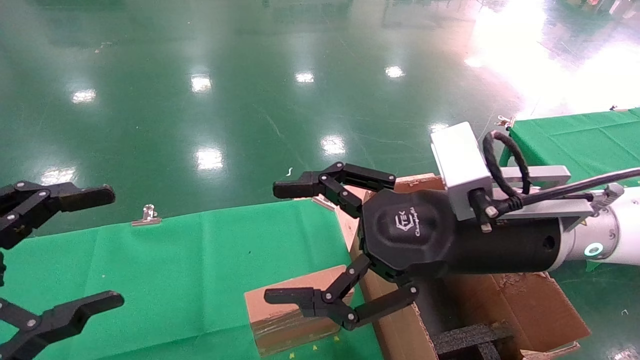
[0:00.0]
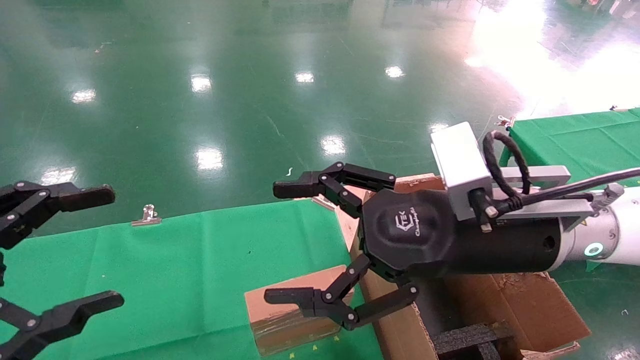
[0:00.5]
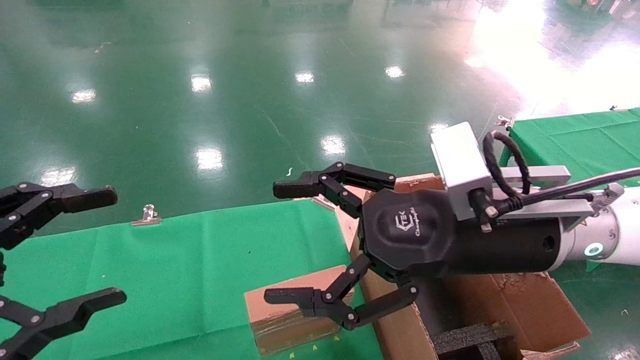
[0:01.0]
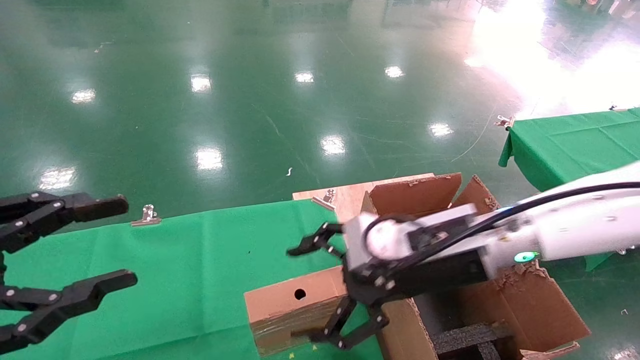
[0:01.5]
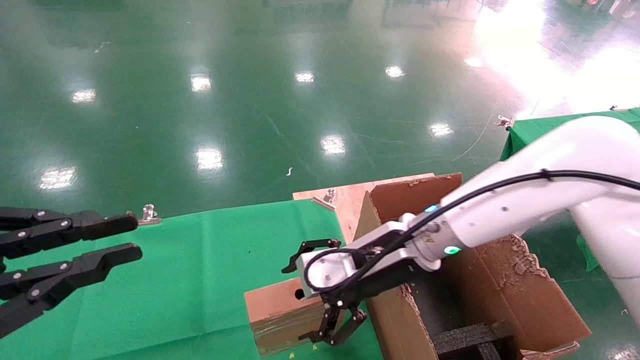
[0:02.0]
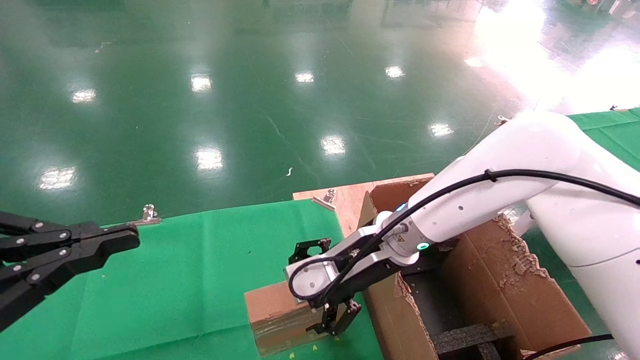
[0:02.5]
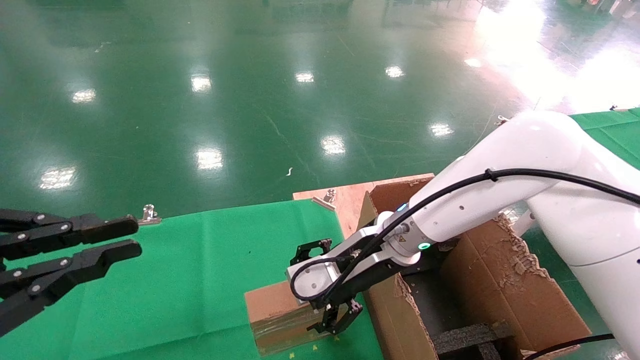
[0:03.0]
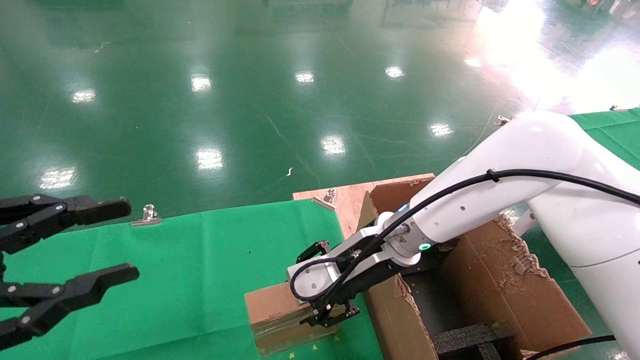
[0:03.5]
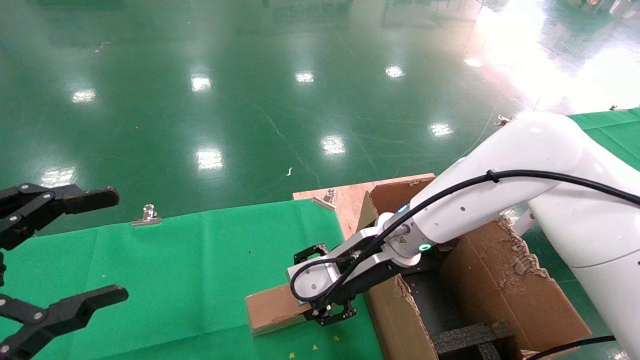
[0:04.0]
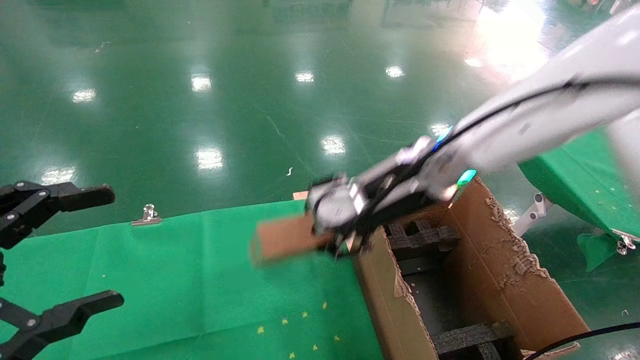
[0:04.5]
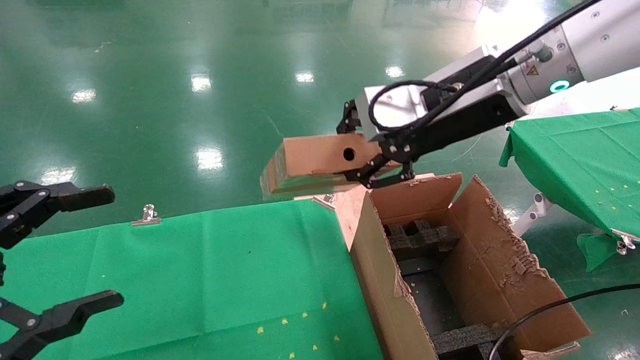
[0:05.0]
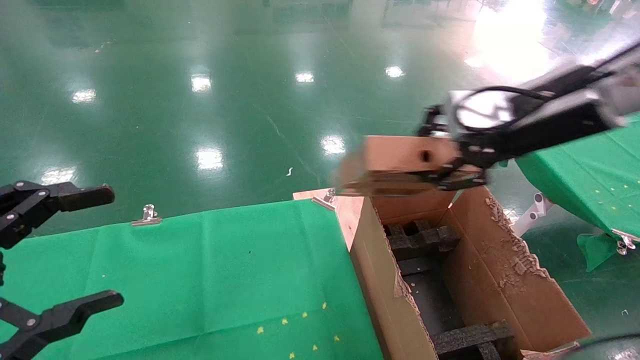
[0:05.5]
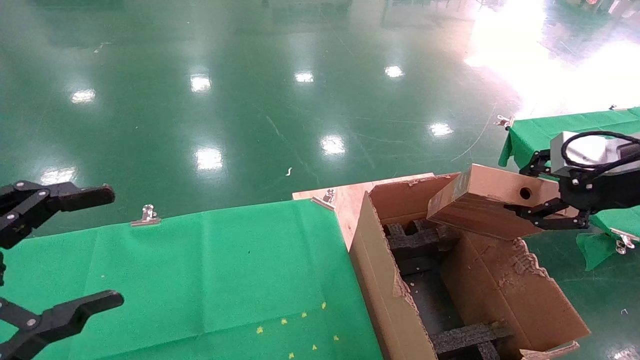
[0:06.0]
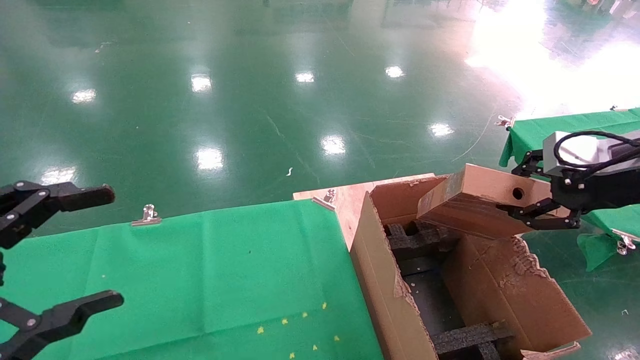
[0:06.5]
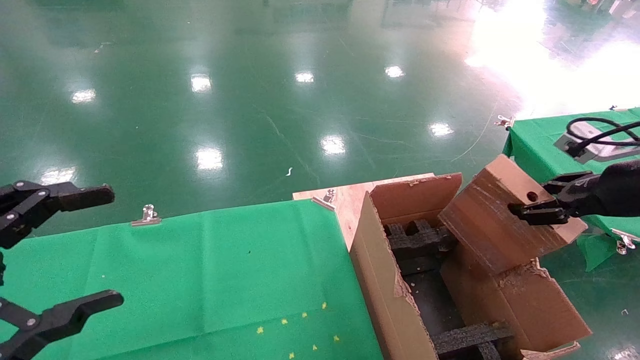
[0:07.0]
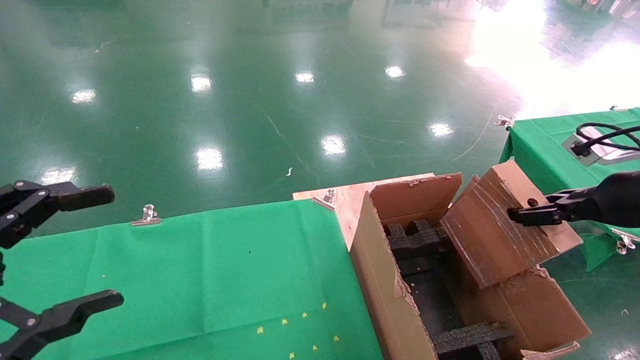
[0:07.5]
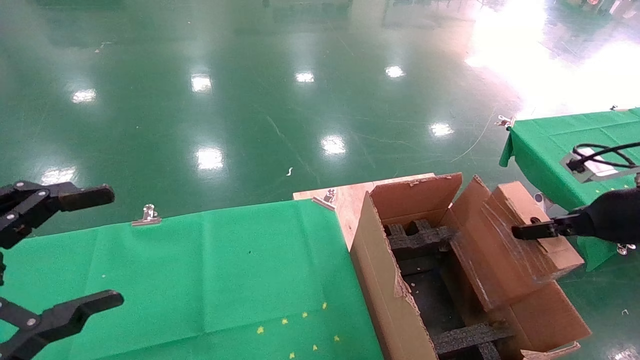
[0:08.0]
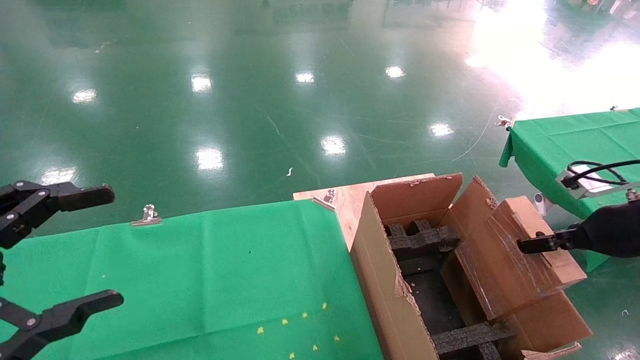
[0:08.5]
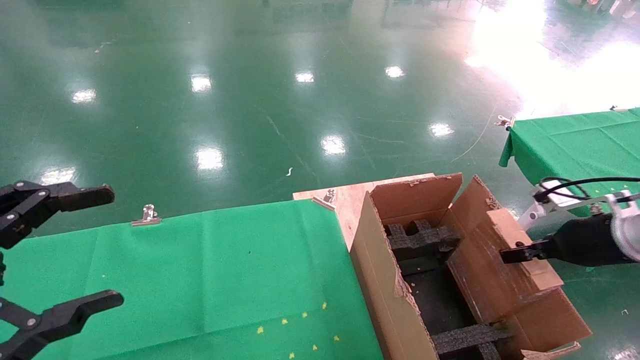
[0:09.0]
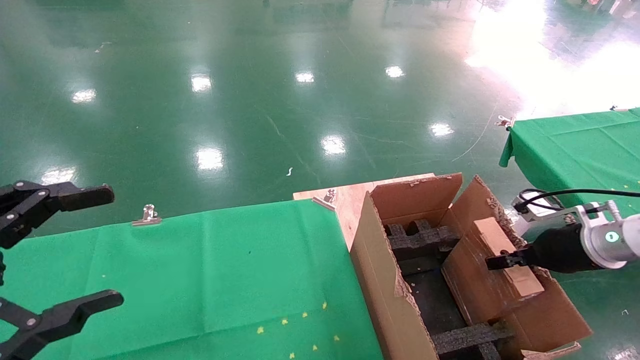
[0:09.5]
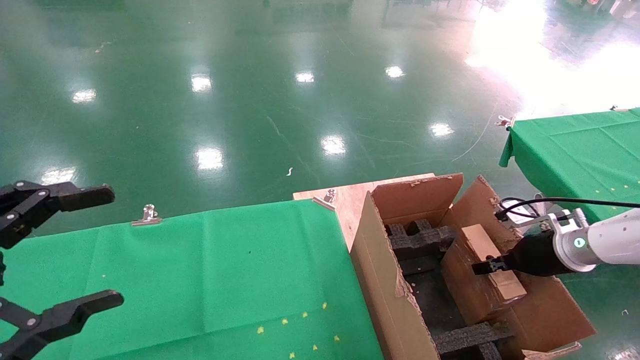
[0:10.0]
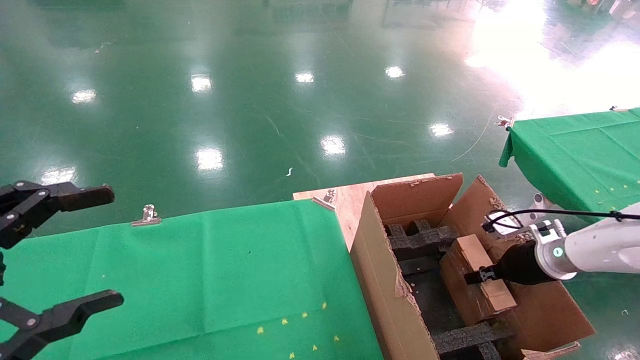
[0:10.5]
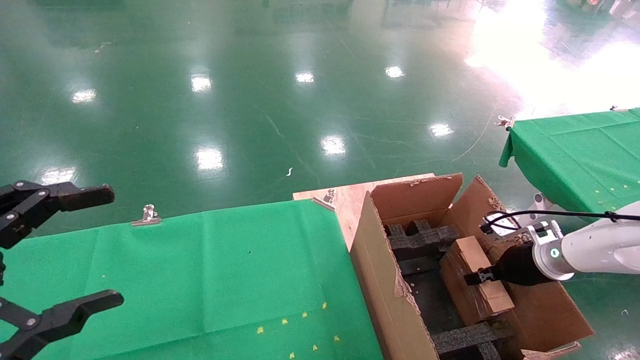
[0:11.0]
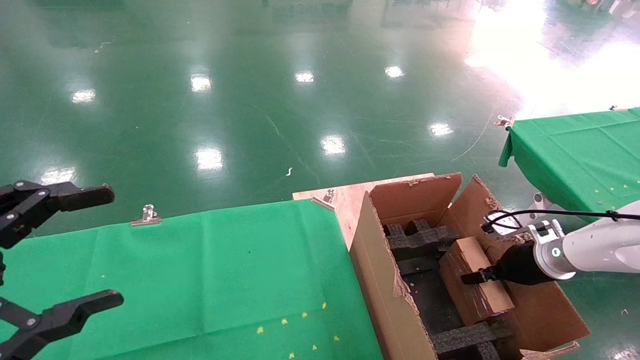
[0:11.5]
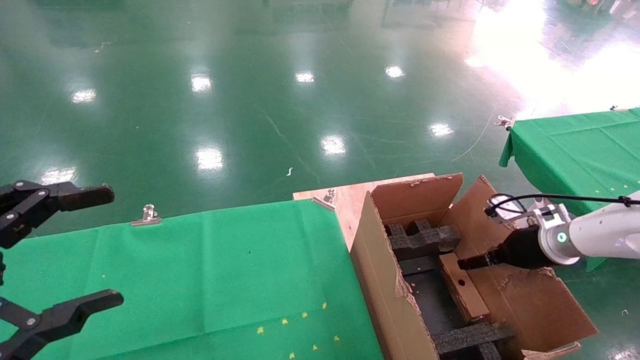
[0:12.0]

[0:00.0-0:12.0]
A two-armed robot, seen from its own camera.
Task of the whole recording: using a robotic arm to pick up a cardboard box and palace it the carton.
Step, 0:01.5 to 0:03.5: Pick up the mouse and the power cord paper box.
0:00.0 to 0:02.0: The left gripper closes its fingers. The right gripper goes approximately 15 cm forward, downward and to the left.
0:02.0 to 0:04.0: The left gripper opens its fingers. The right gripper closes up.
0:04.0 to 0:06.0: The right gripper travels to the right and upward by some 30 cm.
0:06.0 to 0:08.0: The right gripper shifts roughly 10 cm downward and to the right.
0:08.0 to 0:10.0: The right gripper heads downward and forward, covering some 15 cm.
0:10.0 to 0:12.0: The right gripper opens.

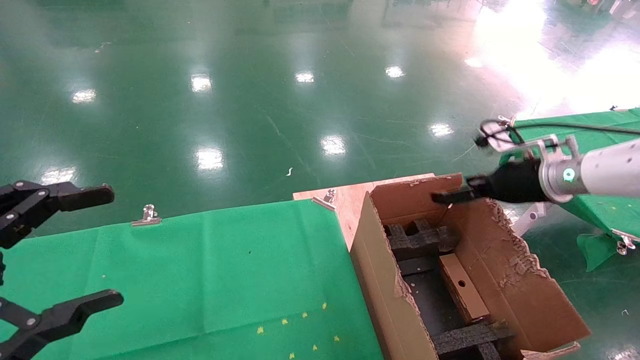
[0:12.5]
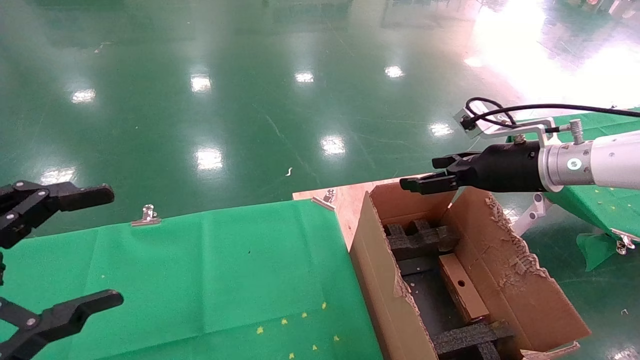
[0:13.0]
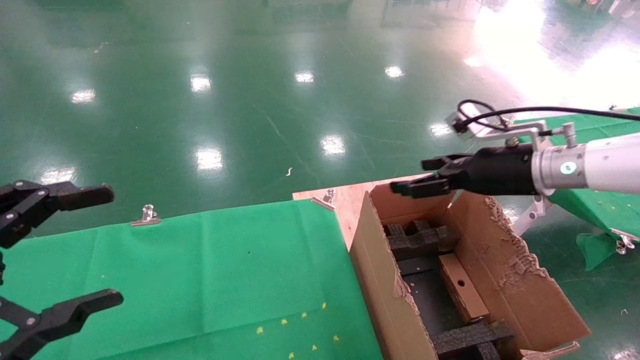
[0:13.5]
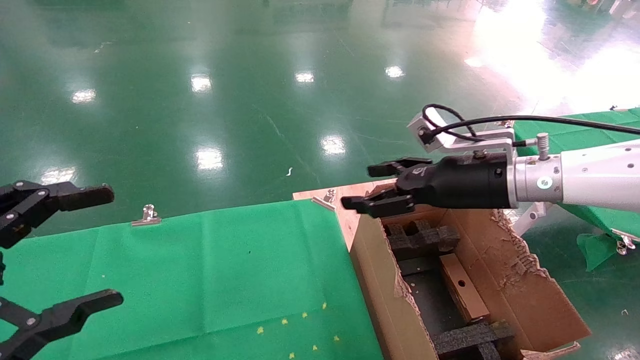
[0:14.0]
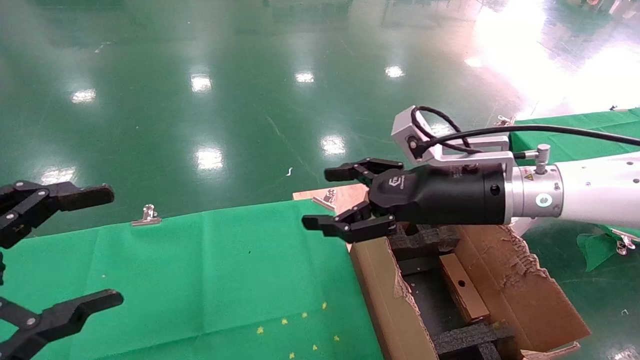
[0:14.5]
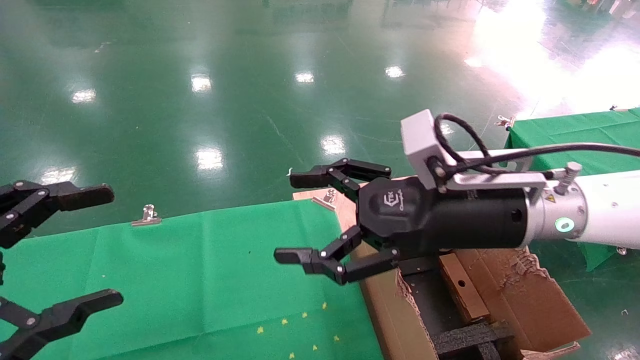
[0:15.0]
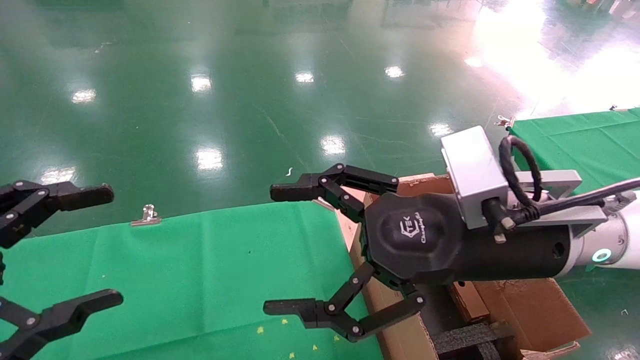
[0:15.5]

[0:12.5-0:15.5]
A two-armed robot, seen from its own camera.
Task of the whole recording: using a robotic arm to pick up a cardboard box and palace it the carton.
0:12.5 to 0:14.0: The right gripper moves to the left, approximately 10 cm.
0:14.0 to 0:15.5: The right gripper moves backward and to the left, roughly 15 cm.

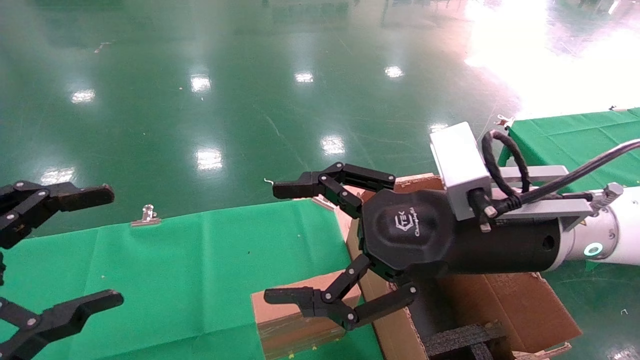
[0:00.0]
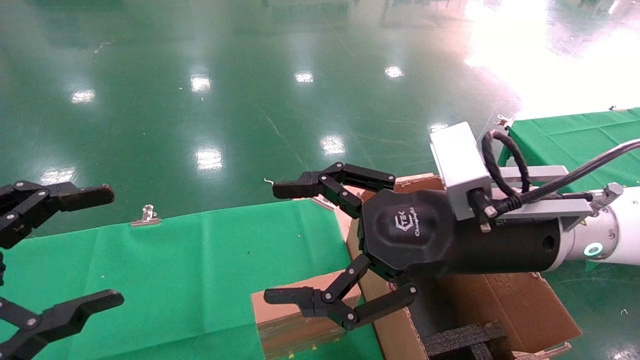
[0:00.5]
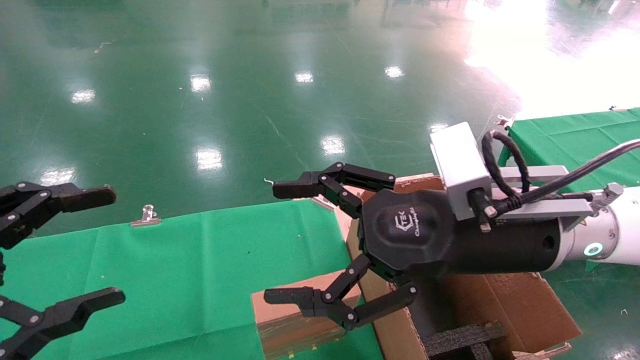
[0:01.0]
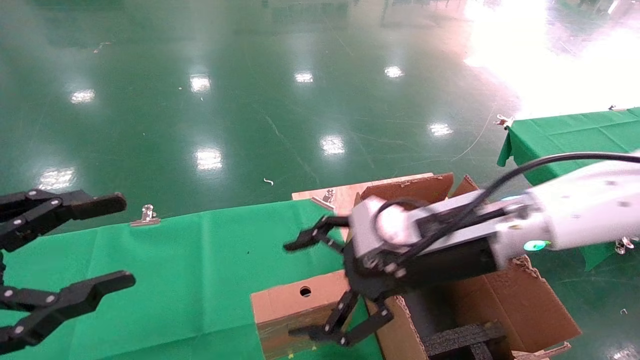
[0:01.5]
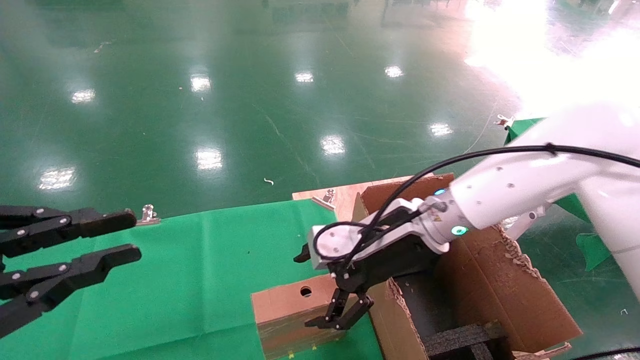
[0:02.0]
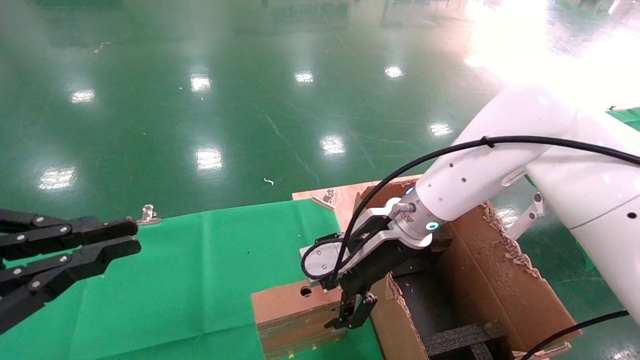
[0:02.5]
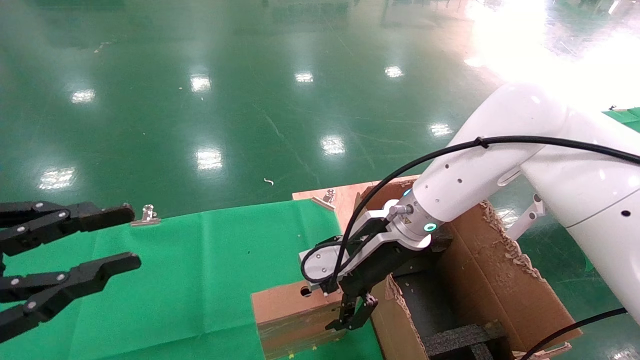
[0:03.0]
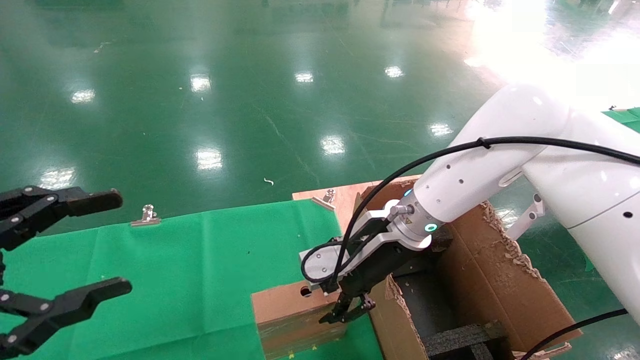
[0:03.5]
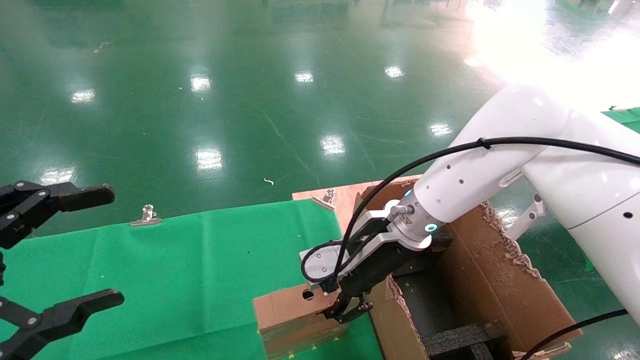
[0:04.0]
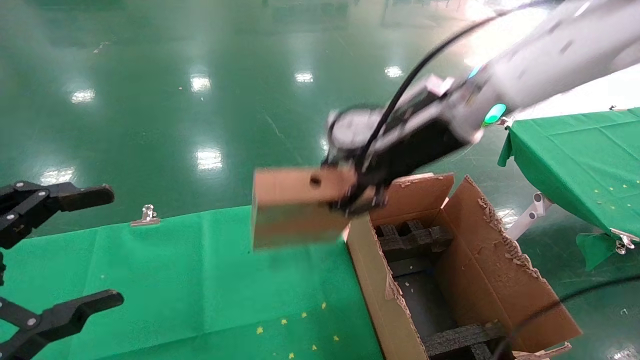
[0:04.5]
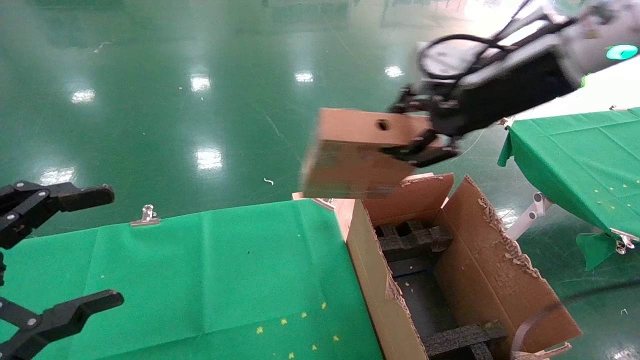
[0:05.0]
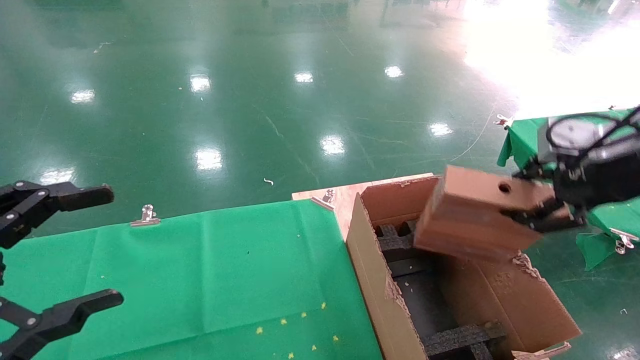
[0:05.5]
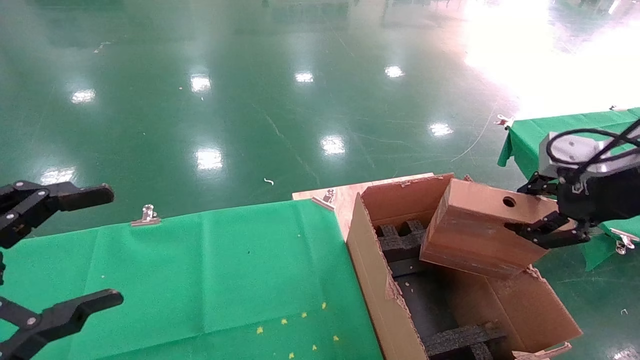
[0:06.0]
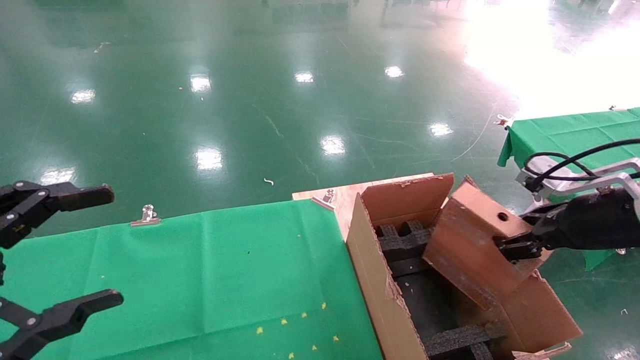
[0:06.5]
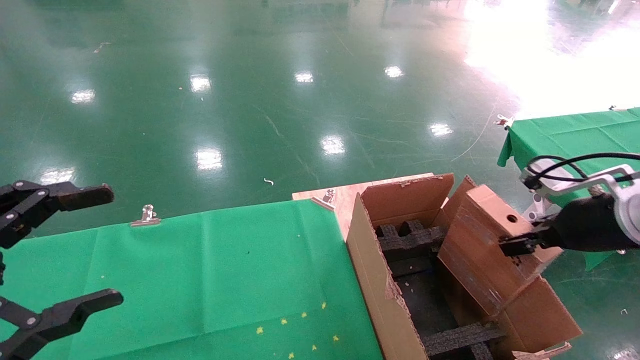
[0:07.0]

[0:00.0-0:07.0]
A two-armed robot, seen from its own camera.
Task of the whole recording: using a robotic arm to pick up a cardboard box and palace it the carton.
Step, 0:01.5 to 0:03.5: Pick up the mouse and the power cord paper box.
0:00.0 to 0:02.0: The left gripper closes its fingers. Meanwhile the right gripper shifts some 10 cm forward and downward.
0:02.0 to 0:03.5: The left gripper opens up. Meanwhile the right gripper closes its fingers.
0:03.5 to 0:05.0: The right gripper moves upward and to the right, approximately 25 cm, and closes its fingers; the left gripper opens up.
0:05.0 to 0:07.0: The right gripper is displaced downward and to the right by roughly 20 cm.
